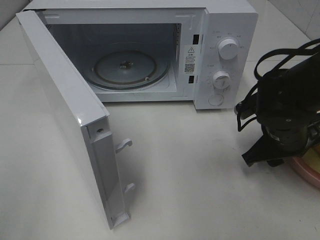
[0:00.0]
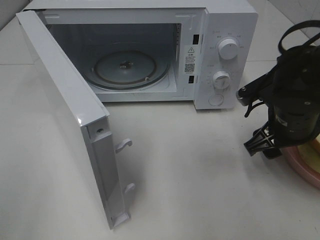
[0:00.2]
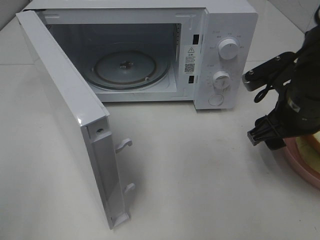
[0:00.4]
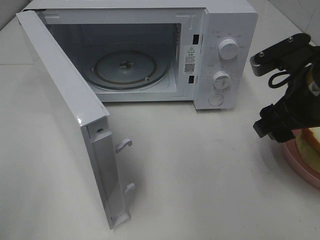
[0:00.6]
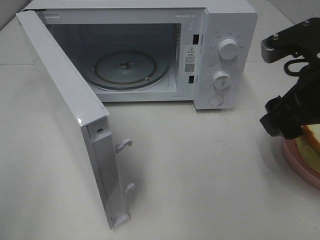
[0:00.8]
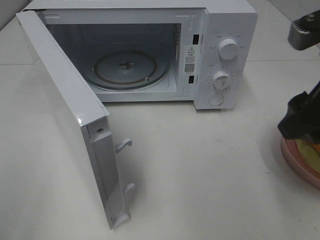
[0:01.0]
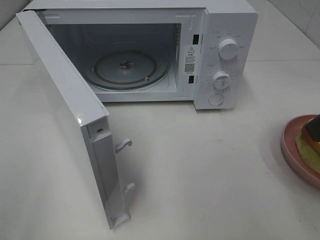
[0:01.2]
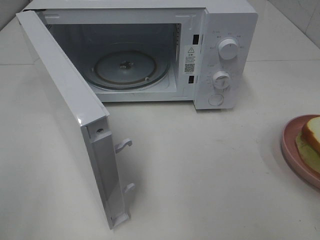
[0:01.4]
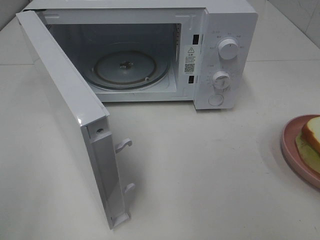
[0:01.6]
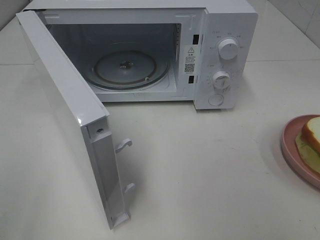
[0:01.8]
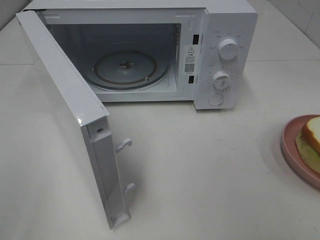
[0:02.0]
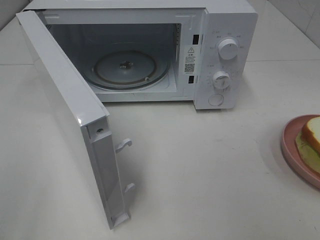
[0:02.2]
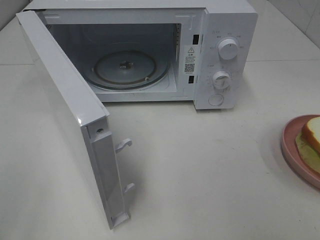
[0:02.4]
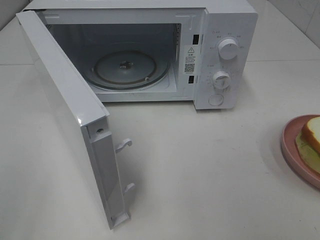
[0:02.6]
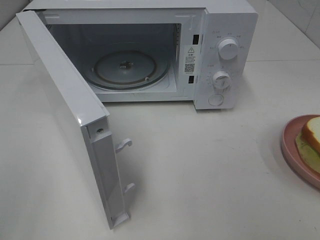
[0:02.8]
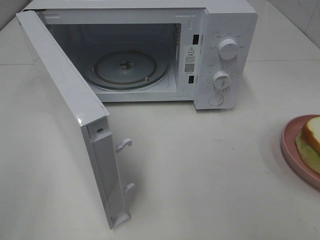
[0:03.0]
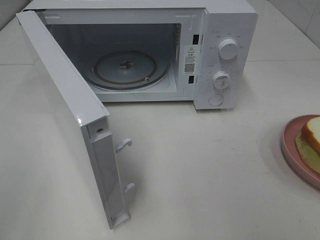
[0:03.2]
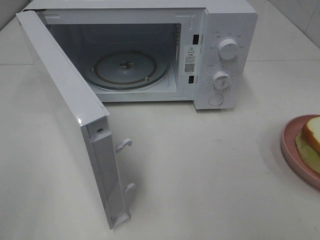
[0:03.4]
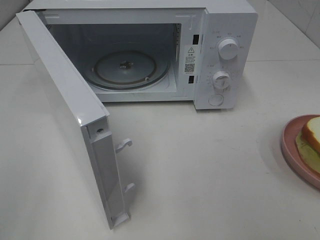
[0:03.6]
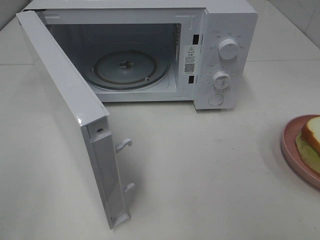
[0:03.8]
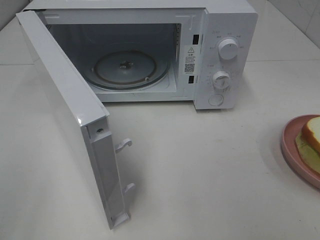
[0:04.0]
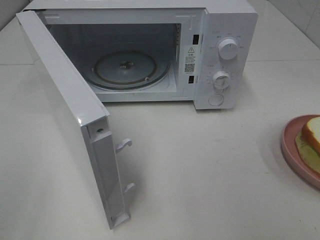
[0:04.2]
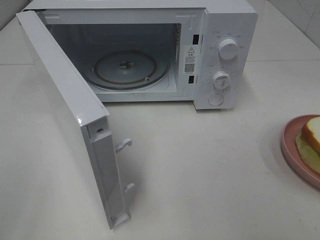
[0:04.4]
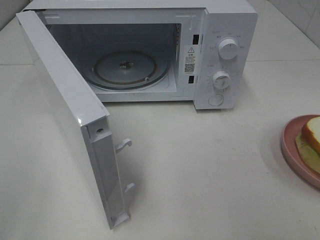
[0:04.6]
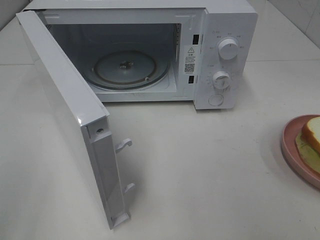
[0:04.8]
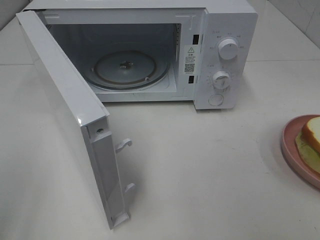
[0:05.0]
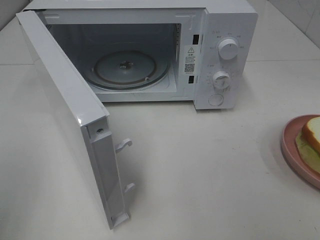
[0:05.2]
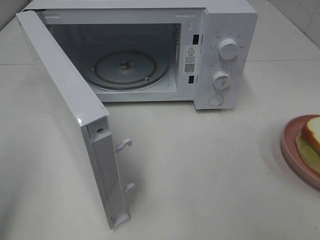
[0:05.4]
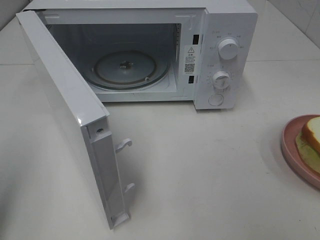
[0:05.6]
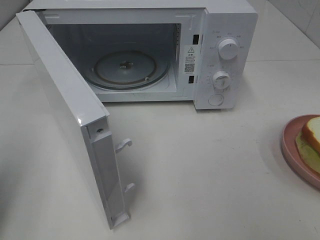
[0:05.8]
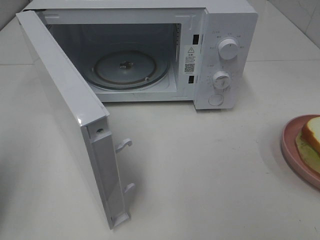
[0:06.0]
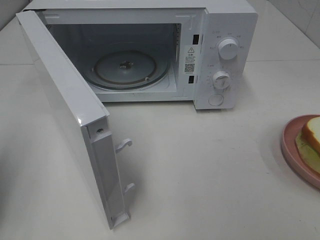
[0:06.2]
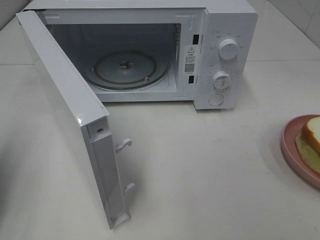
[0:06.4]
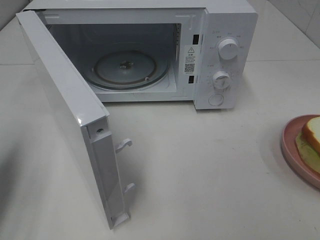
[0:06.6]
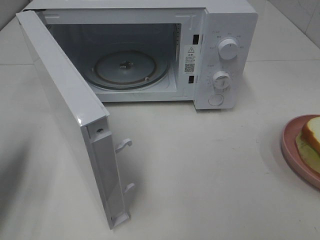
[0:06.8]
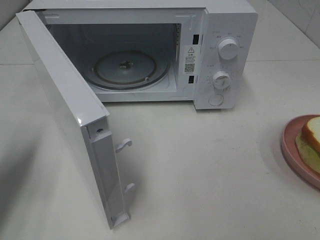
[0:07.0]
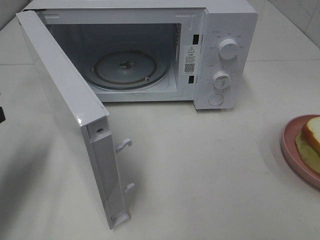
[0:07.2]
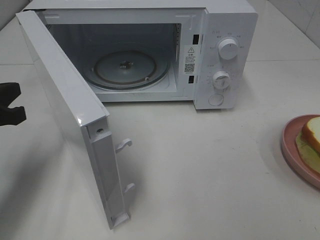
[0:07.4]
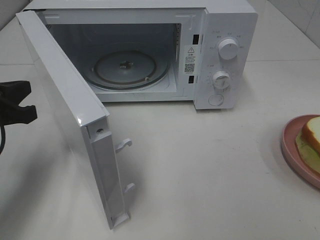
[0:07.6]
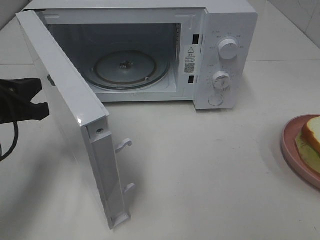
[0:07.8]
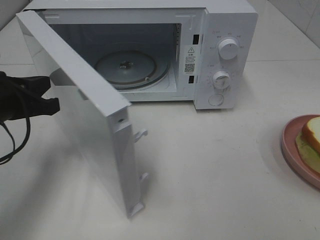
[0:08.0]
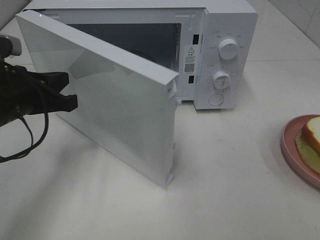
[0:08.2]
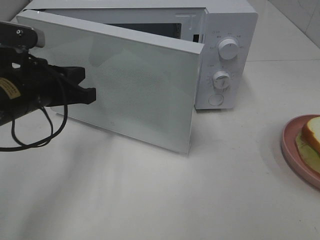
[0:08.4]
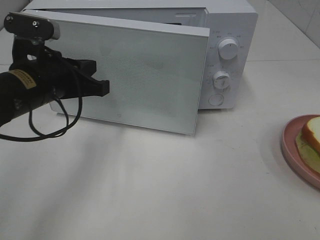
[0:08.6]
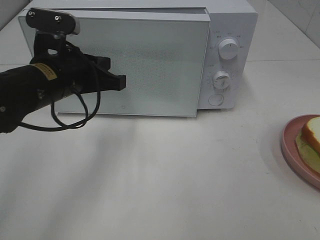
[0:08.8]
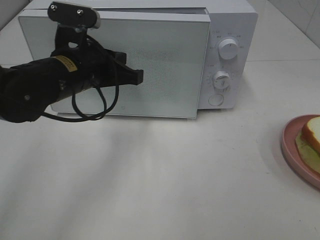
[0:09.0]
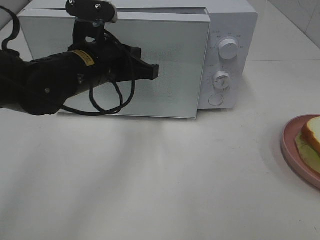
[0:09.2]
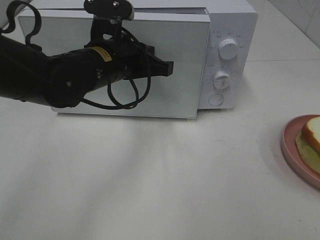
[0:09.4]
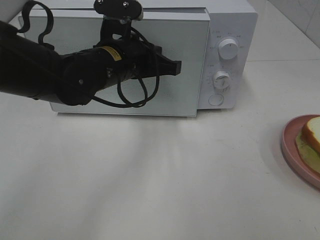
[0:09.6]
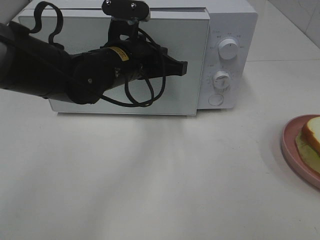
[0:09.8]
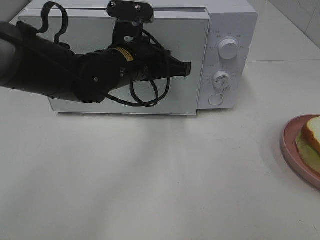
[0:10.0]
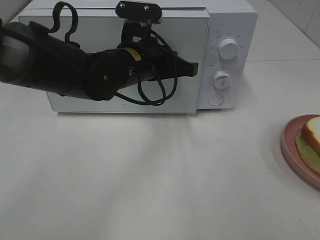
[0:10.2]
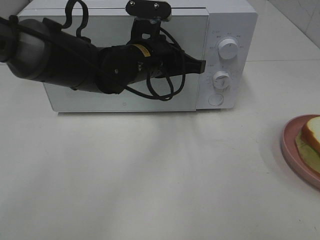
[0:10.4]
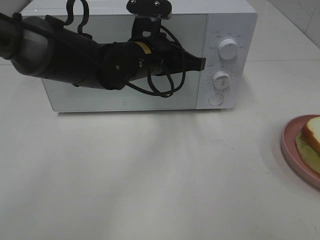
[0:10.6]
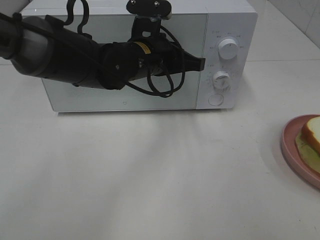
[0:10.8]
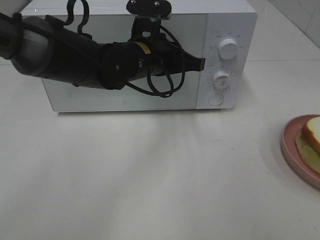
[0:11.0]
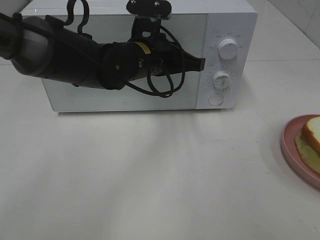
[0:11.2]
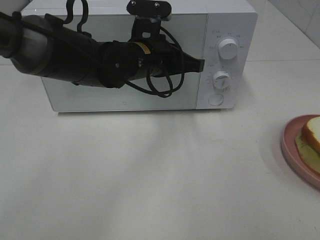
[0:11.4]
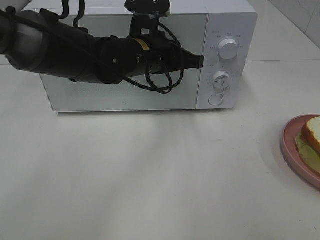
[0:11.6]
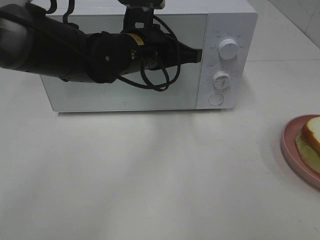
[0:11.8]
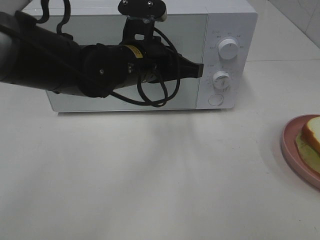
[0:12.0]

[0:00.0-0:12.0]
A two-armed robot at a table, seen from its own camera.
Task of the whole recording: Heat Sandwich.
0:00.0 to 0:01.6: The right gripper heads upward and backward, covering roughly 30 cm.
0:03.0 to 0:04.4: Both grippers stay about where they are.
0:04.4 to 0:06.0: The left gripper heads forward, covering about 15 cm, and closes its fingers.
0:06.0 to 0:07.6: The left gripper is displaced forward, to the right and downward by about 15 cm.
0:07.6 to 0:09.0: The left gripper is displaced to the right and forward by some 15 cm.
0:09.0 to 0:10.4: The left gripper goes roughly 10 cm to the right.
0:10.4 to 0:12.0: The grippers make only small movements.

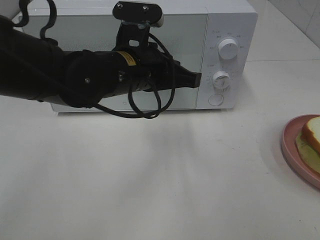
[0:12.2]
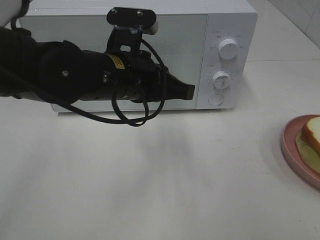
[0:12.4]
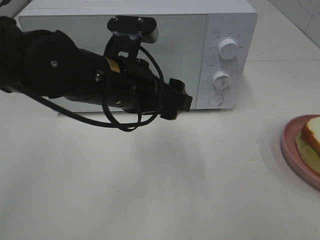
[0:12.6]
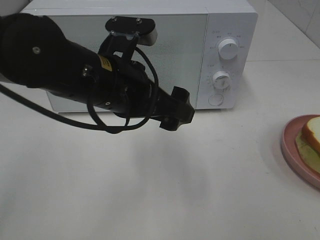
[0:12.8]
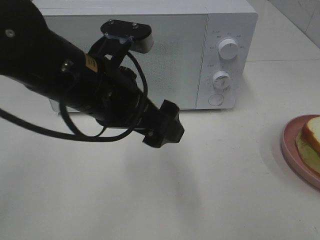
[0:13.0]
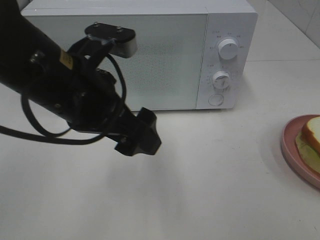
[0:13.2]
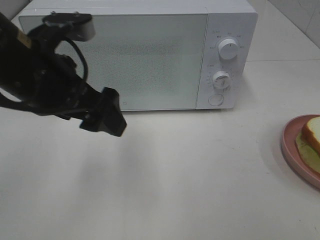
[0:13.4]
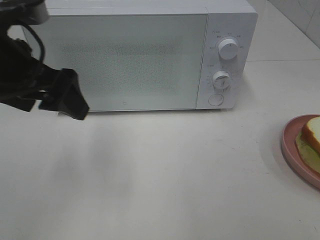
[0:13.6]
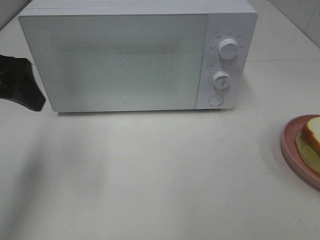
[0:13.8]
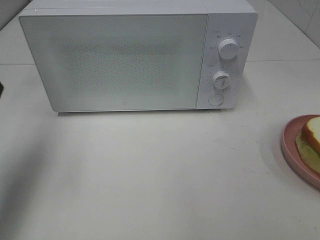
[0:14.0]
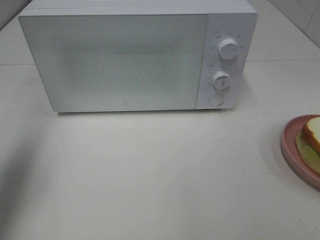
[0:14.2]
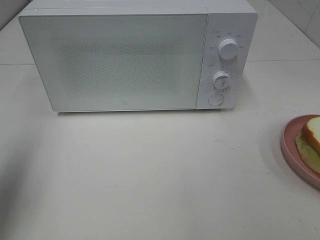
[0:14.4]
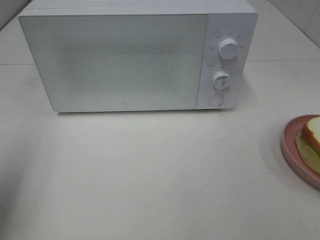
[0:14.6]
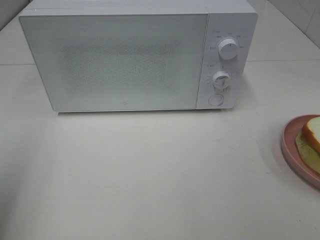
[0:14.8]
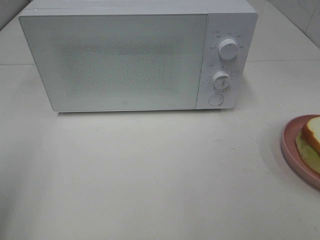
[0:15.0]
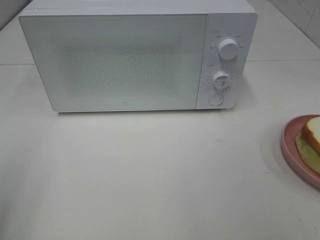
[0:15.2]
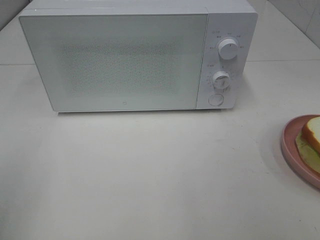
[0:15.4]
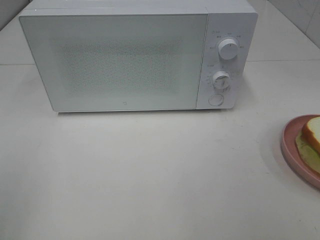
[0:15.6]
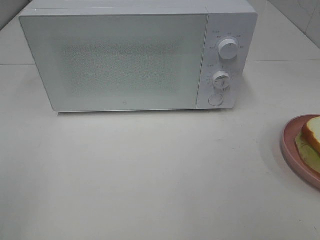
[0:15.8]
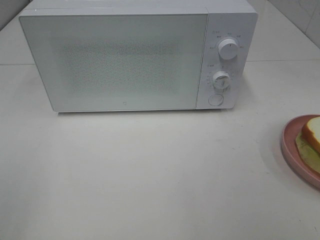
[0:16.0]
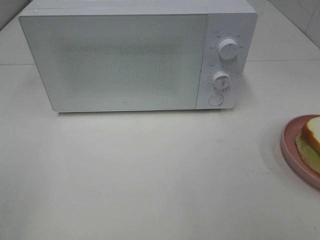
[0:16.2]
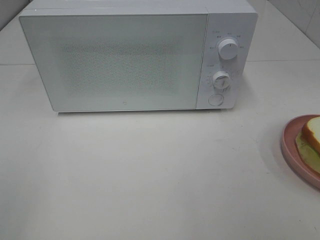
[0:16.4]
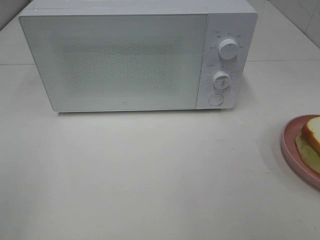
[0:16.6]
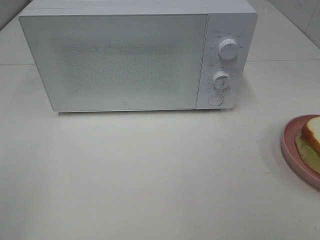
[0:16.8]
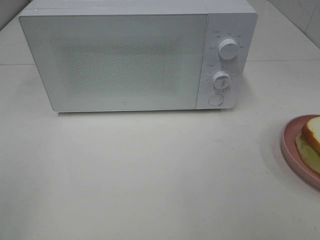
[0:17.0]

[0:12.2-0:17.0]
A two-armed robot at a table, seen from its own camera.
Task of the whole recording: Heat Sandwich.
0:12.2 to 0:13.8: The left gripper moves to the left and upward, about 20 cm, and opens.
0:13.8 to 0:15.4: The left gripper moves backward, about 20 cm.
